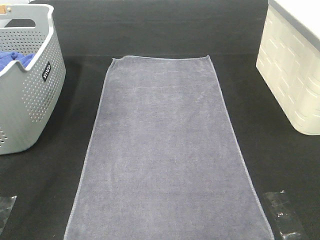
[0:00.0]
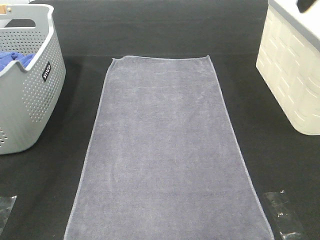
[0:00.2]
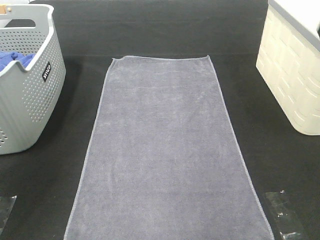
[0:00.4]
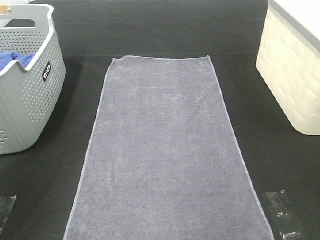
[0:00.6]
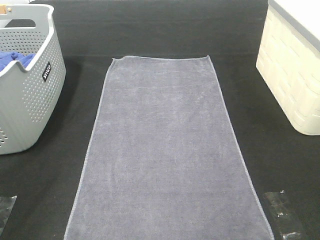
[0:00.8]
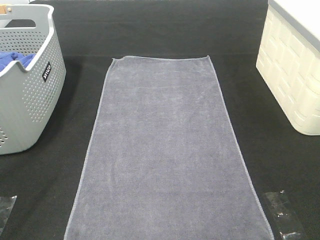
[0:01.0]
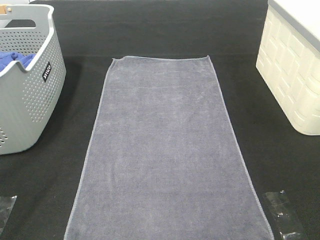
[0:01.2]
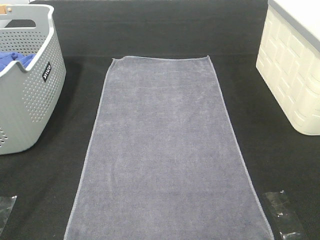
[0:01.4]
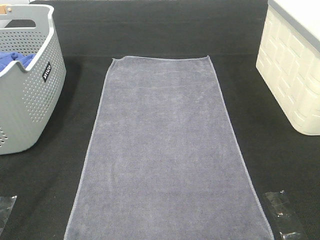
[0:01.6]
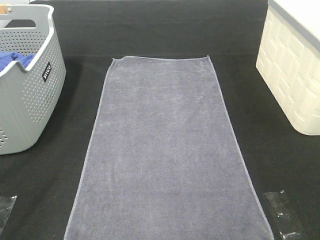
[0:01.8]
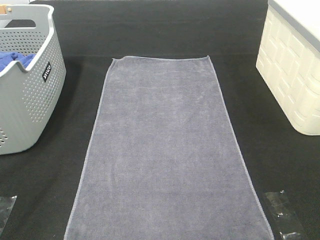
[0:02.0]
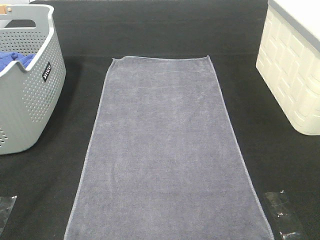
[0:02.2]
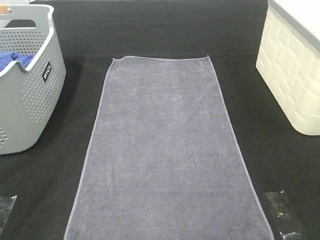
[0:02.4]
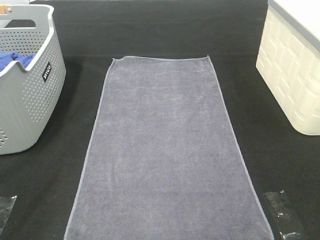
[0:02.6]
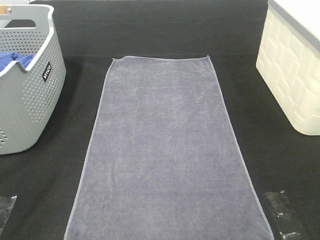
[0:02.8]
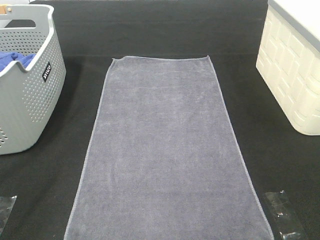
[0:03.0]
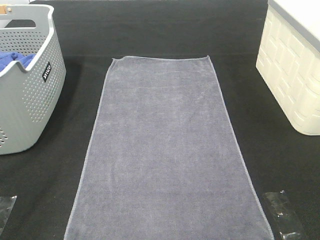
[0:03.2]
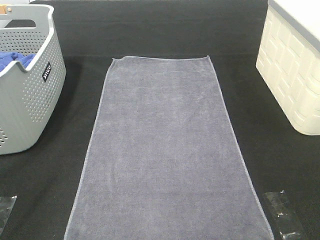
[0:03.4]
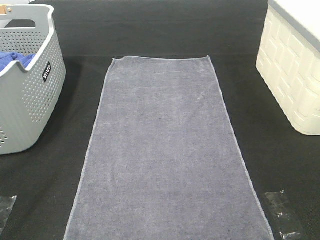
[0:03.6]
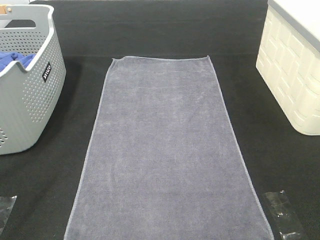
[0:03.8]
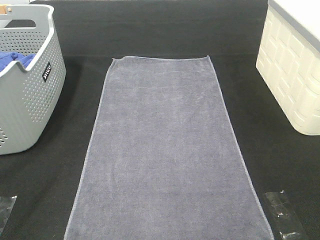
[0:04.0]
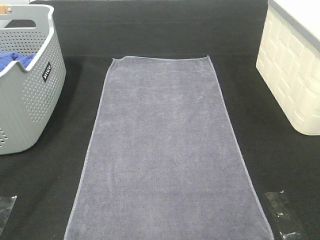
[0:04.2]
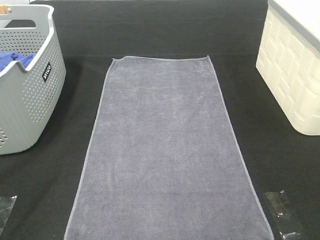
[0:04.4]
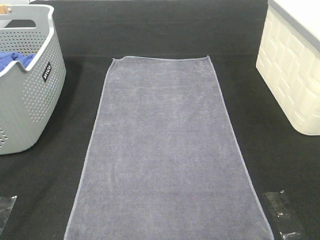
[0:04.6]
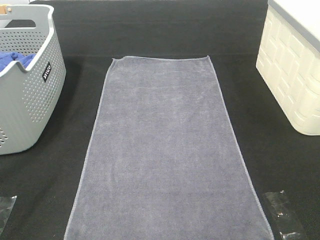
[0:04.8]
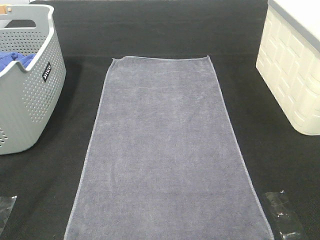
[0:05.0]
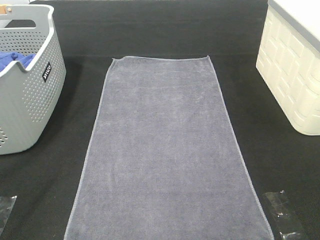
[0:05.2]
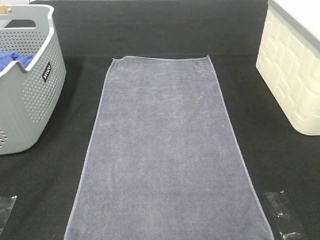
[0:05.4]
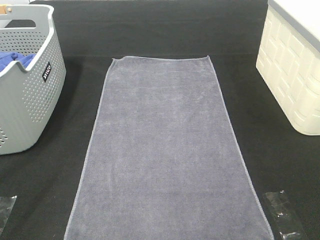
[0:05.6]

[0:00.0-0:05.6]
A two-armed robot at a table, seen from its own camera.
Task of the whole recording: Remove the towel and place it.
0:00.0 to 0:01.4: The left gripper travels backward and downward by some 35 cm. Meanwhile the right gripper goes about 30 cm backward.
0:04.2 to 0:05.6: Neither gripper changes place.

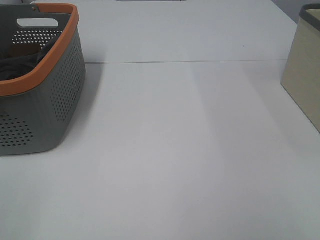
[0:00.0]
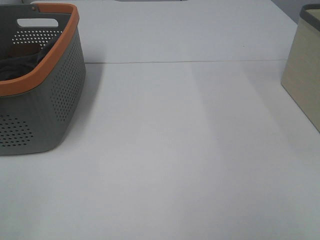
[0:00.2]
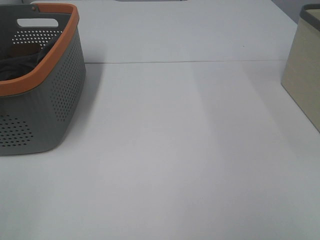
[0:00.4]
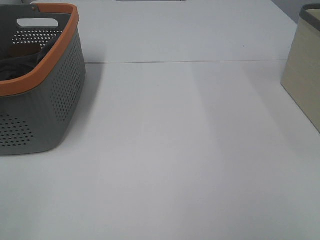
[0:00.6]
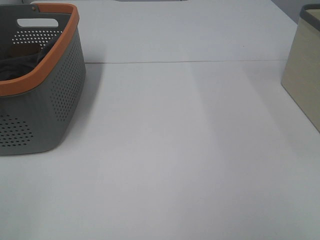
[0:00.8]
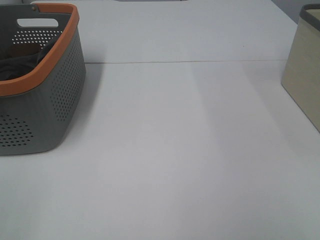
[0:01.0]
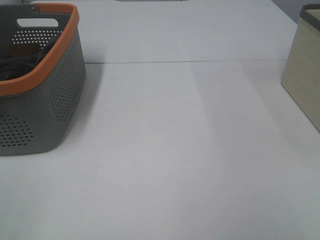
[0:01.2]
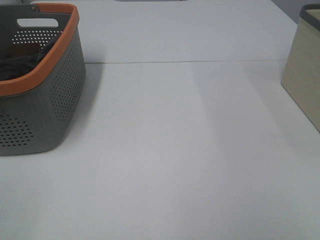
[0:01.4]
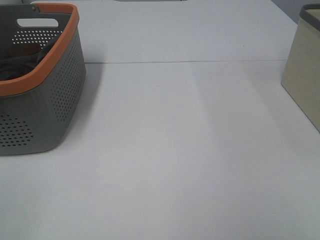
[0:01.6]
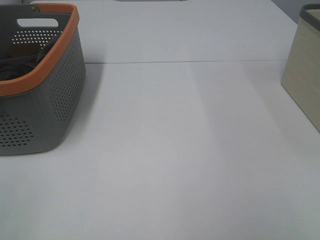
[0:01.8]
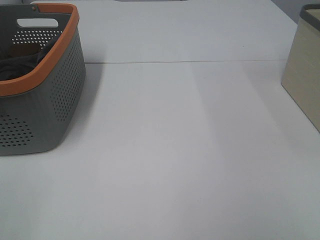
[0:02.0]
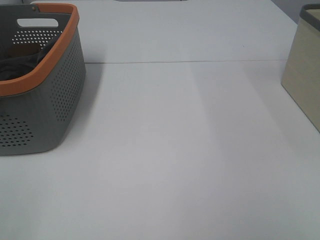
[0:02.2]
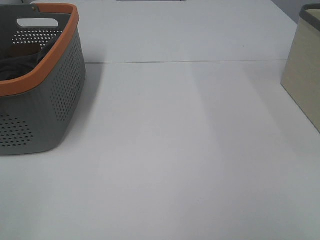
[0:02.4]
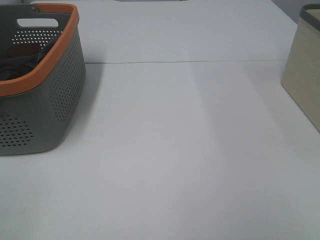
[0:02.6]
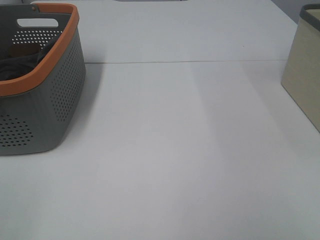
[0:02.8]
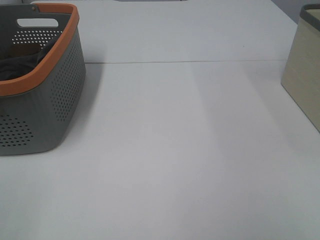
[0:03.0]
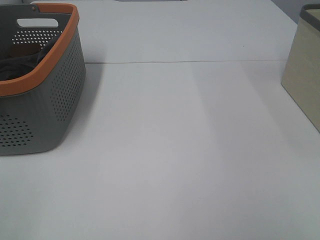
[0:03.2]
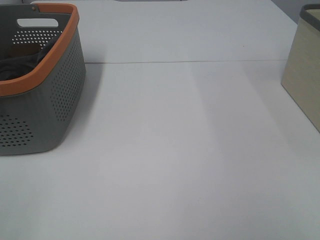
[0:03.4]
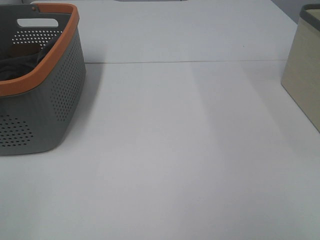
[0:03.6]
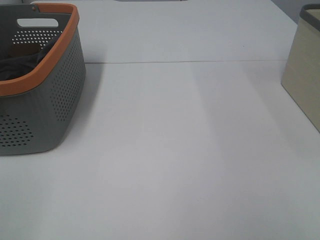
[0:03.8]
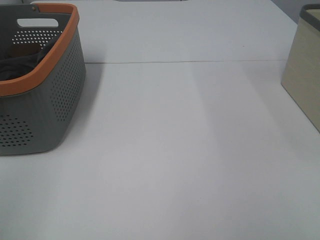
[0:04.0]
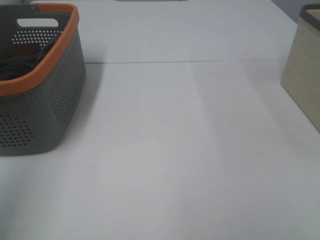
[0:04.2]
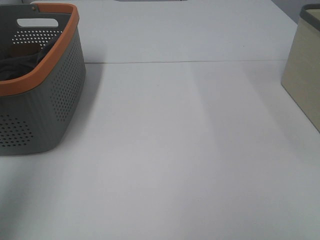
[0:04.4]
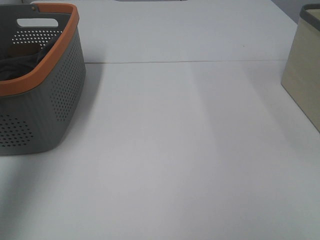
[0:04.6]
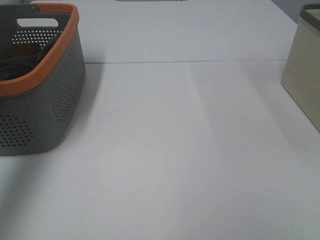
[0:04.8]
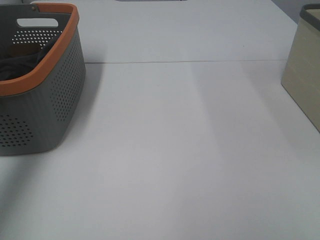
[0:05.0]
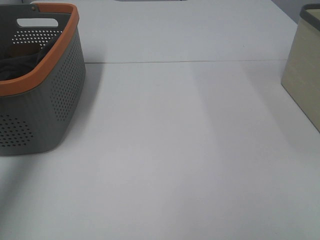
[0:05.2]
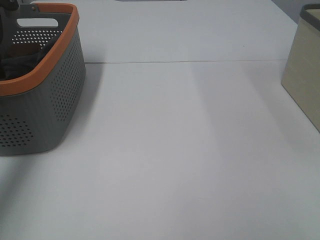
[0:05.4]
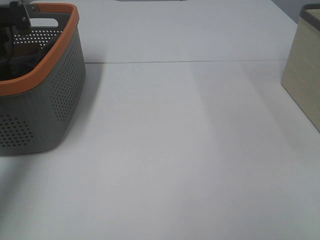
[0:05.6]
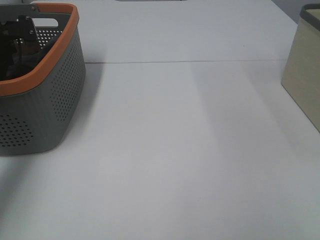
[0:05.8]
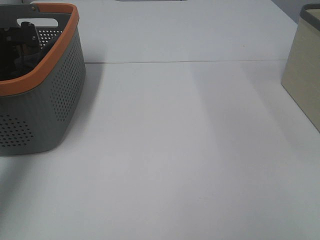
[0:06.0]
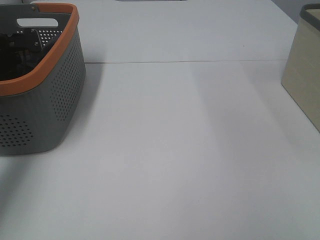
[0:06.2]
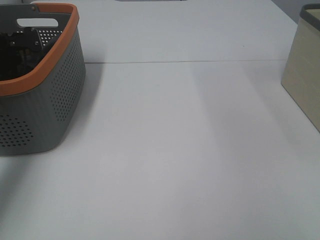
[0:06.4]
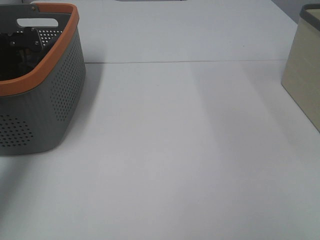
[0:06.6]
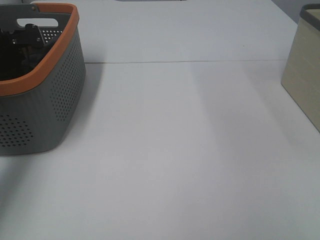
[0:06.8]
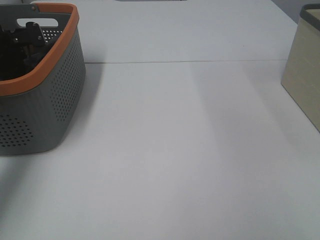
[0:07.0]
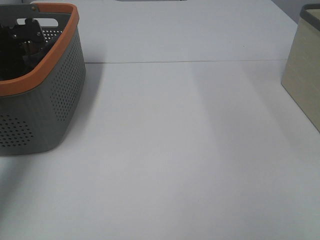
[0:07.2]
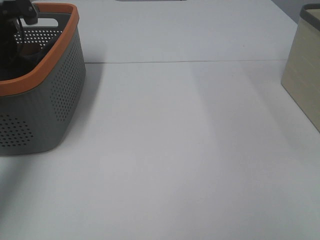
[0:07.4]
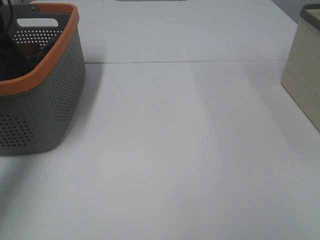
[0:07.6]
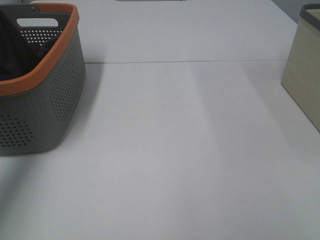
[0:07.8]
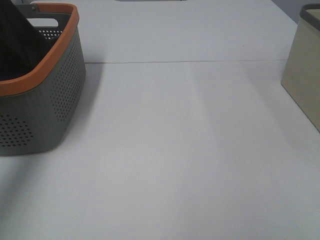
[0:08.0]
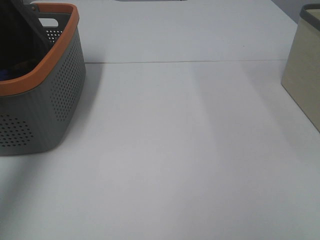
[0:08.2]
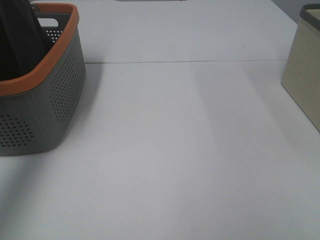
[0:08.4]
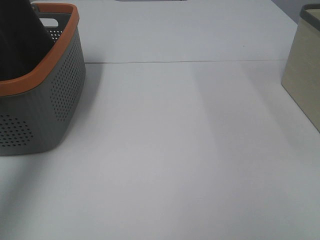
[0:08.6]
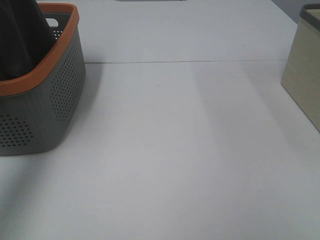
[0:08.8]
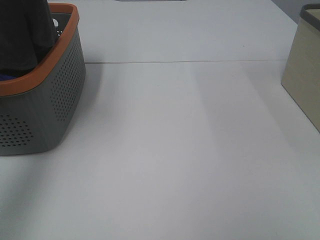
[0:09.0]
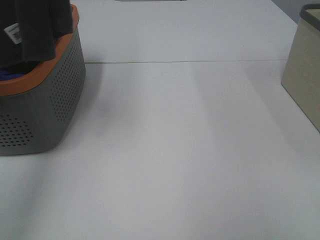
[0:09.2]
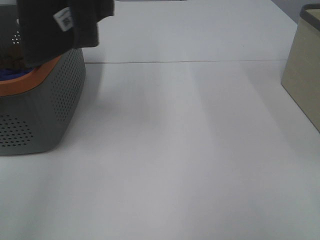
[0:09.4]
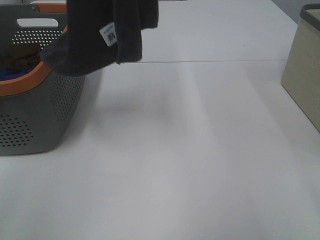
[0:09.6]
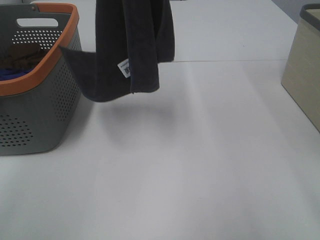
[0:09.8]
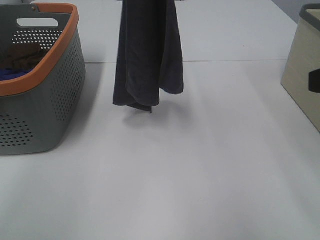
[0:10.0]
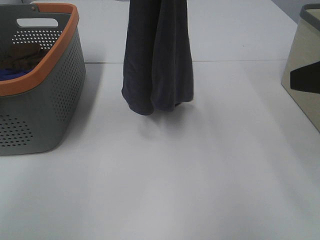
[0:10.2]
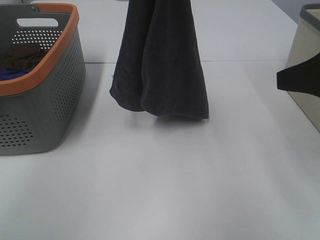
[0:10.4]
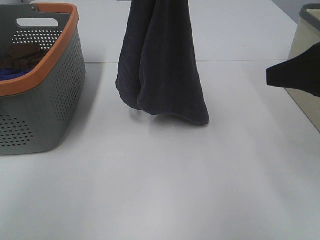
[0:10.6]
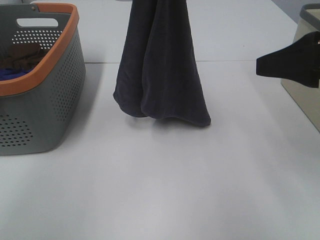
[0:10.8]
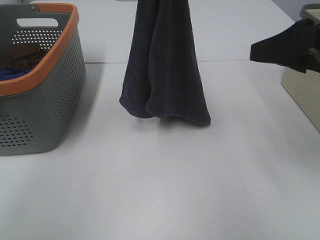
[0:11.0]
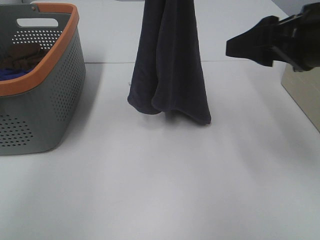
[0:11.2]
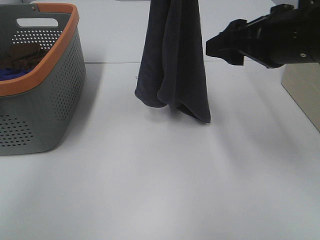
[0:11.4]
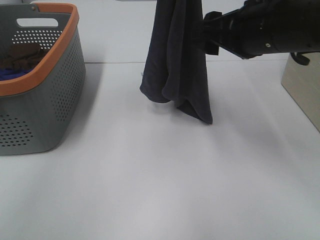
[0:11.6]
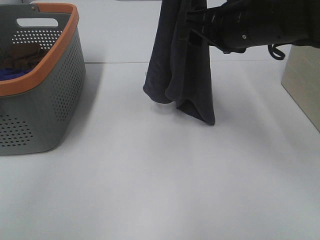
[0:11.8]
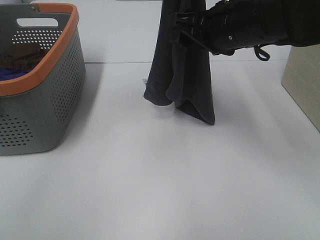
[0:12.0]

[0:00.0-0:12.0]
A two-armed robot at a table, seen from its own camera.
Task of the whole recording: Remove the towel and place it.
0:00.0 to 0:03.0: Both grippers stay about where they are.
0:03.0 to 0:04.4: The left gripper shifts roughly 25 cm forward and upward.
0:04.4 to 0:06.0: The left gripper moves forward and downward, about 40 cm.
0:07.6 to 0:09.0: The left gripper travels upward and backward by some 30 cm.
0:09.0 to 0:10.4: The right gripper is displaced forward by about 15 cm, while the left gripper heads to the right and downward, covering approximately 25 cm.
0:10.4 to 0:12.0: The left gripper changes place by some 5 cm; the right gripper travels forward and to the left by roughly 20 cm.

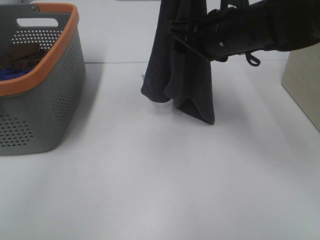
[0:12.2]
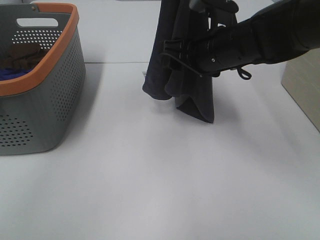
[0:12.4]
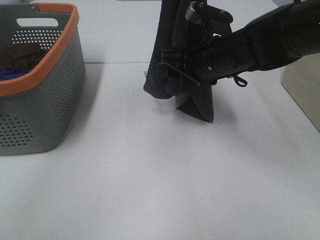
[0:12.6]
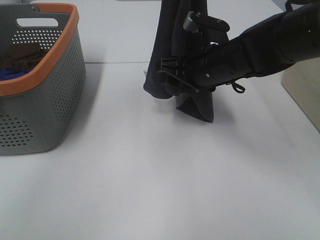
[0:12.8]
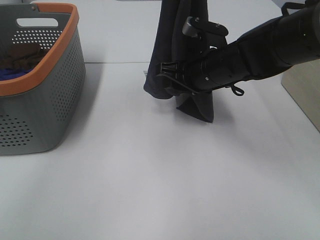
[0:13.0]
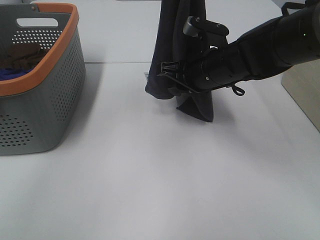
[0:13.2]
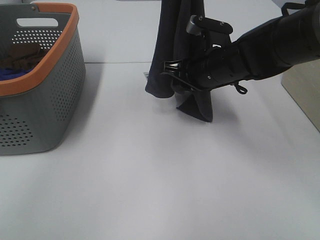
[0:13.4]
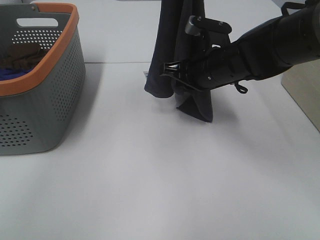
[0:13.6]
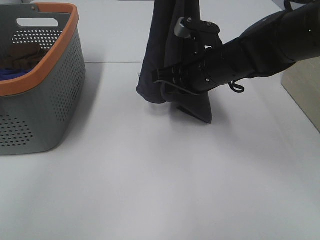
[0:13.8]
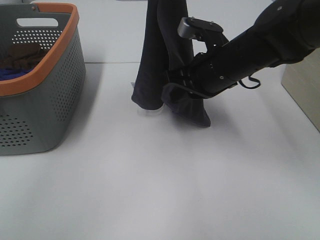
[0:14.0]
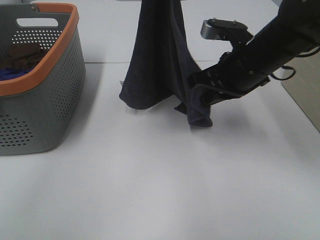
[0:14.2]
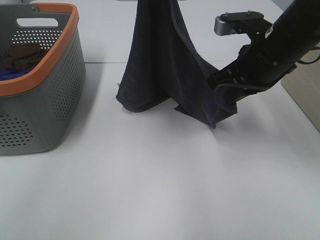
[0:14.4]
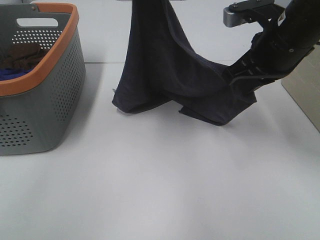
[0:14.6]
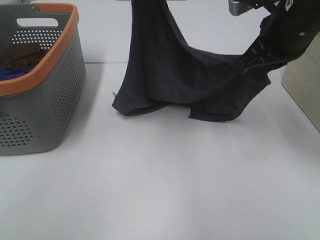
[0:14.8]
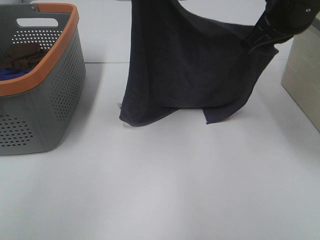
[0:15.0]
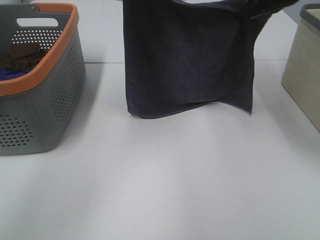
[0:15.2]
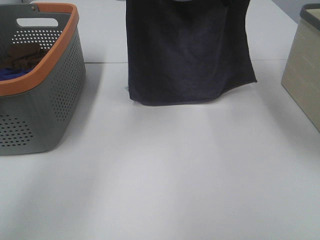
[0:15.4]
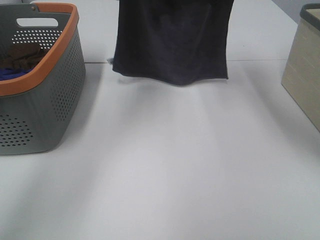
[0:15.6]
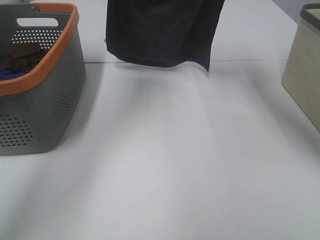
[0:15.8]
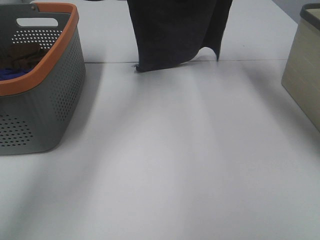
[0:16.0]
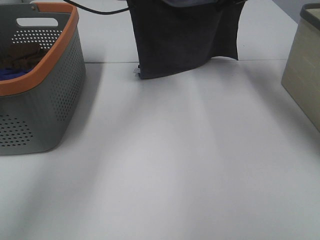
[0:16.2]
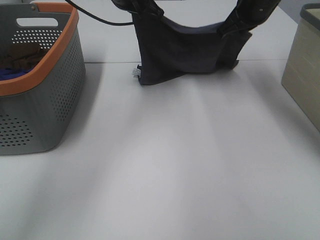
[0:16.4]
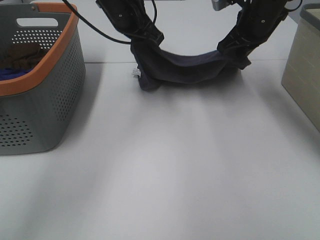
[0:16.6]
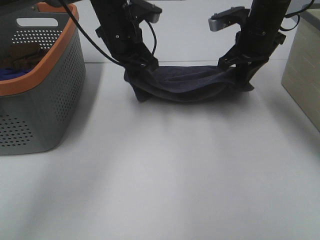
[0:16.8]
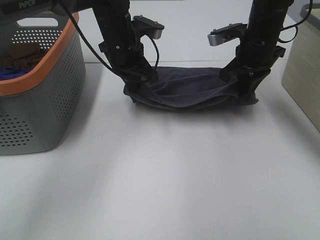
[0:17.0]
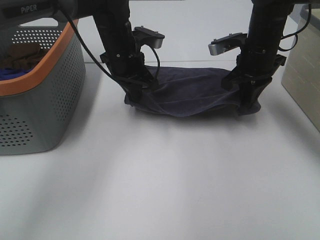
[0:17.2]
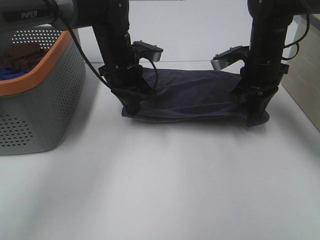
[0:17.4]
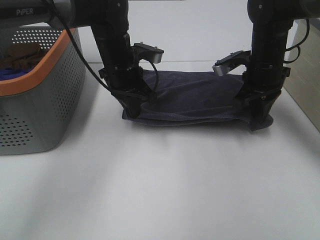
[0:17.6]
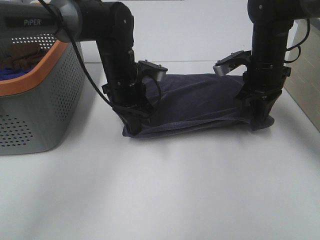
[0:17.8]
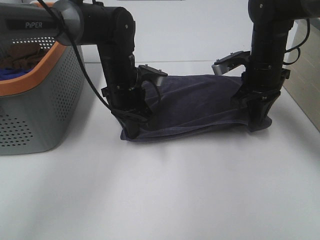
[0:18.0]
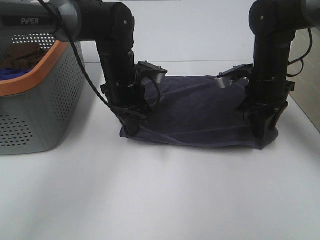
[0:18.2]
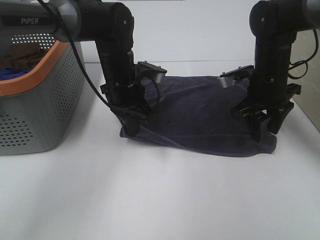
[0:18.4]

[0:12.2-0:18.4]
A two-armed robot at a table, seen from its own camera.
Task of the whole recording: Remove the towel and place it.
Step, 0:12.8 to 0:14.6: Right hand: spread the grey towel flat on the table.
Step, 0:12.8 to 0:15.4: Left hand: spread the grey towel flat on the table.
0:12.2 to 0:13.8: The right gripper goes roughly 5 cm downward, and closes up.
0:13.8 to 0:15.4: The left gripper heads forward and to the left, covering about 10 cm; the right gripper moves upward, about 15 cm.
0:15.4 to 0:16.8: Both grippers move downward, roughly 15 cm.
0:16.8 to 0:18.4: The two grippers go roughly 10 cm downward and backward. The right gripper opens up.
